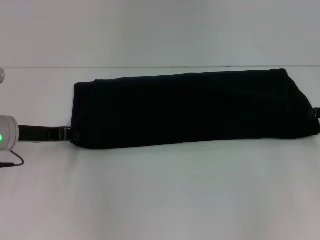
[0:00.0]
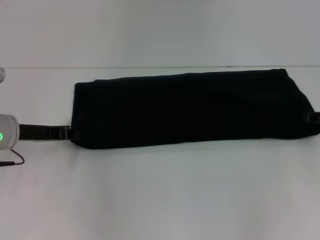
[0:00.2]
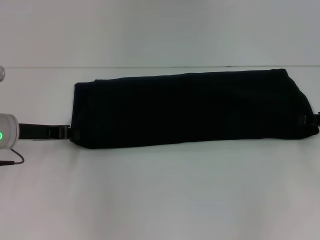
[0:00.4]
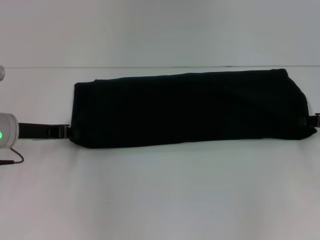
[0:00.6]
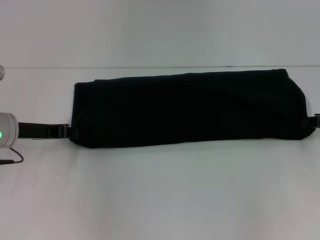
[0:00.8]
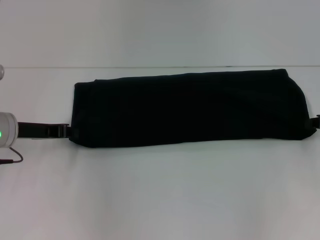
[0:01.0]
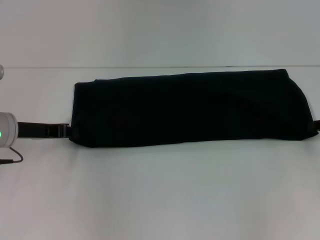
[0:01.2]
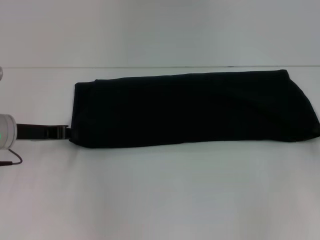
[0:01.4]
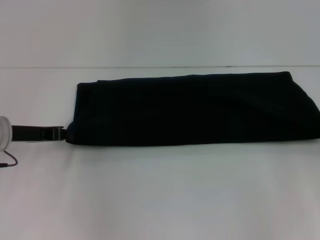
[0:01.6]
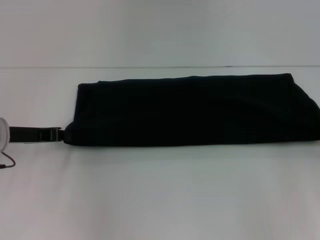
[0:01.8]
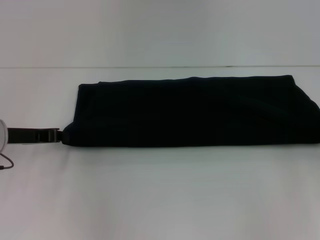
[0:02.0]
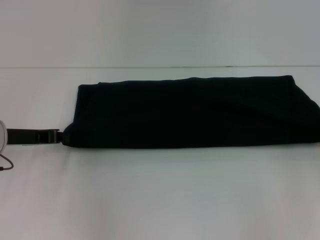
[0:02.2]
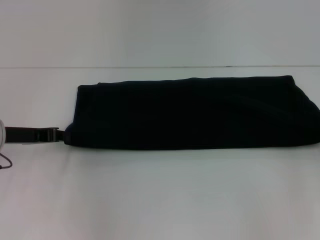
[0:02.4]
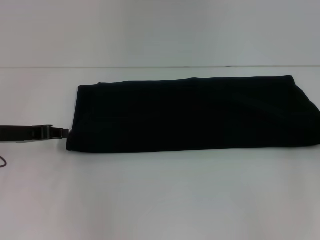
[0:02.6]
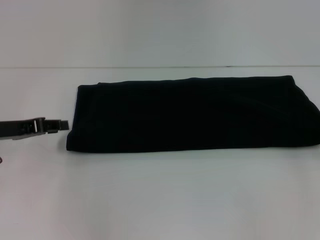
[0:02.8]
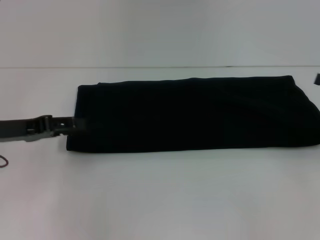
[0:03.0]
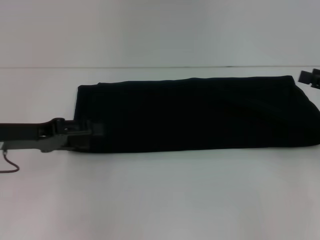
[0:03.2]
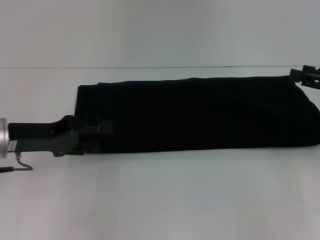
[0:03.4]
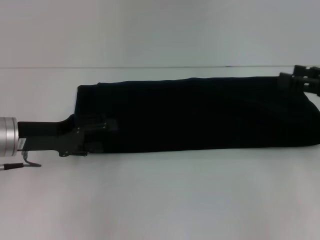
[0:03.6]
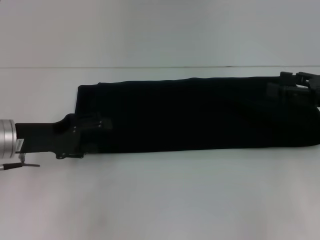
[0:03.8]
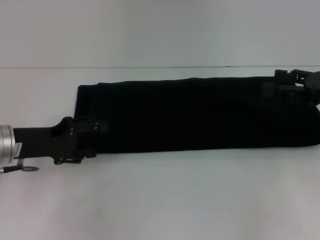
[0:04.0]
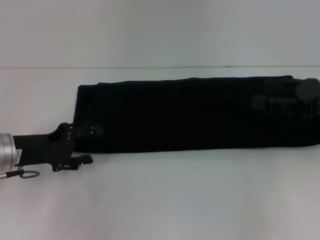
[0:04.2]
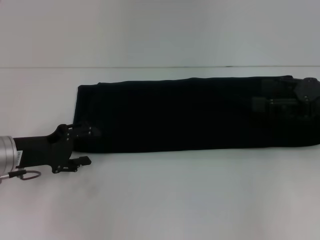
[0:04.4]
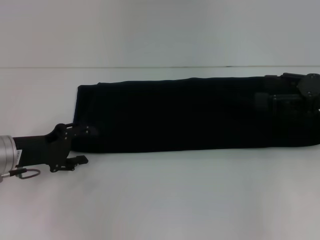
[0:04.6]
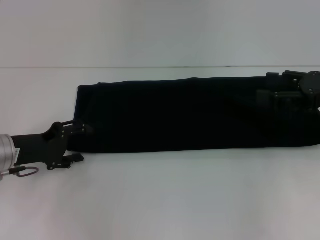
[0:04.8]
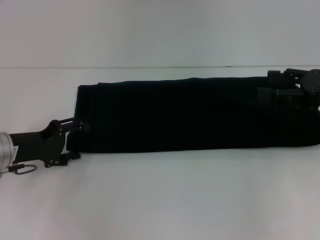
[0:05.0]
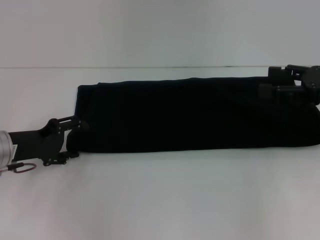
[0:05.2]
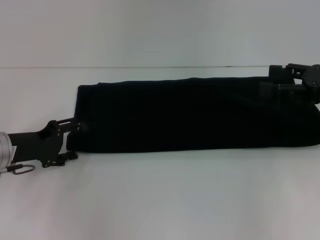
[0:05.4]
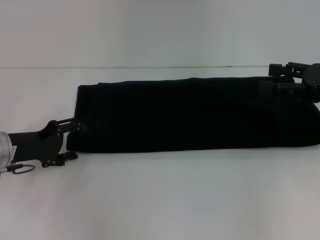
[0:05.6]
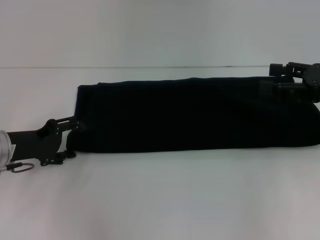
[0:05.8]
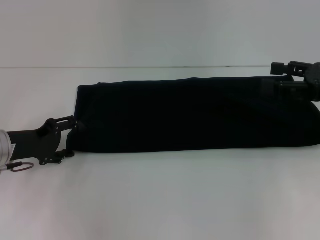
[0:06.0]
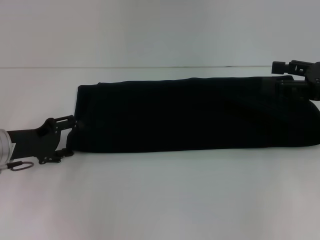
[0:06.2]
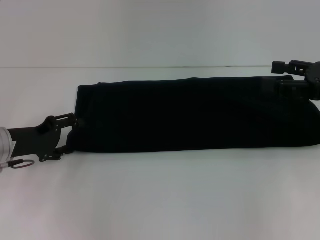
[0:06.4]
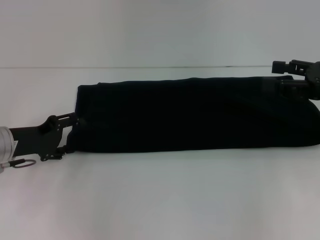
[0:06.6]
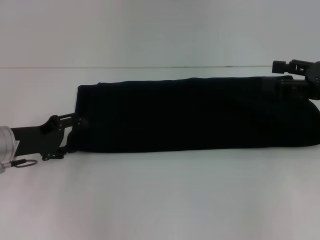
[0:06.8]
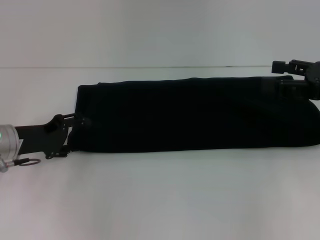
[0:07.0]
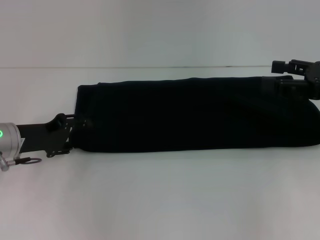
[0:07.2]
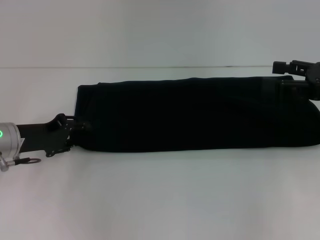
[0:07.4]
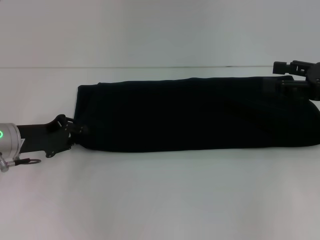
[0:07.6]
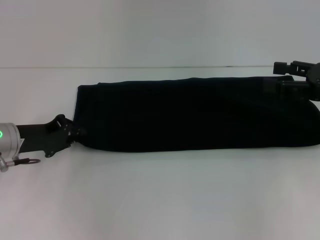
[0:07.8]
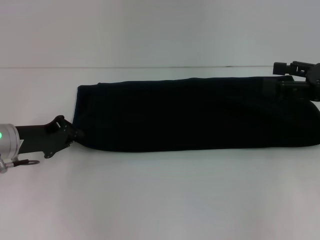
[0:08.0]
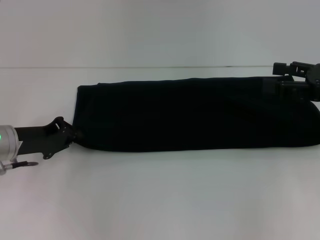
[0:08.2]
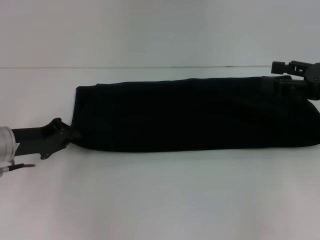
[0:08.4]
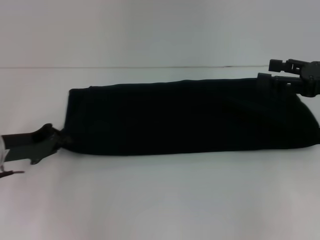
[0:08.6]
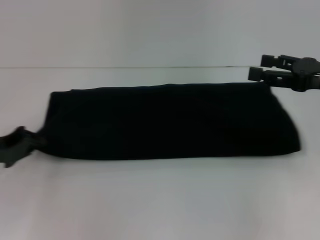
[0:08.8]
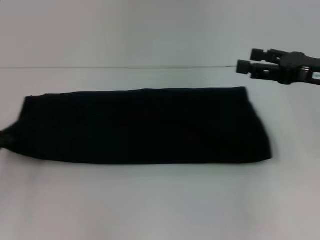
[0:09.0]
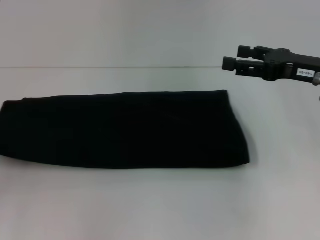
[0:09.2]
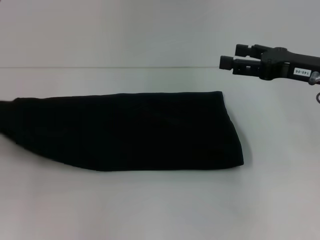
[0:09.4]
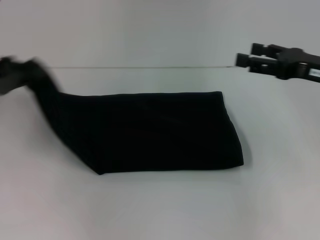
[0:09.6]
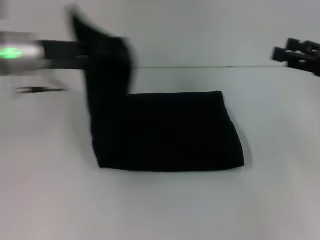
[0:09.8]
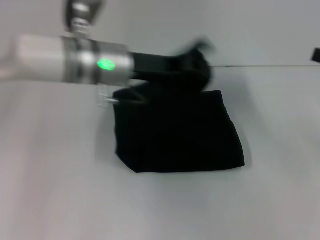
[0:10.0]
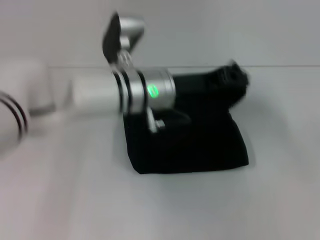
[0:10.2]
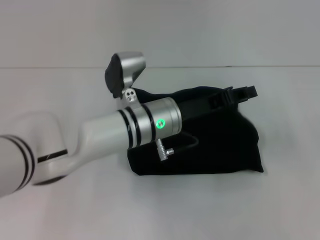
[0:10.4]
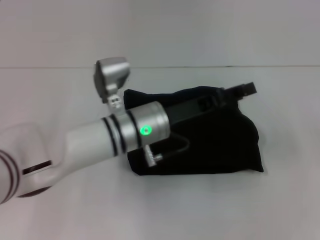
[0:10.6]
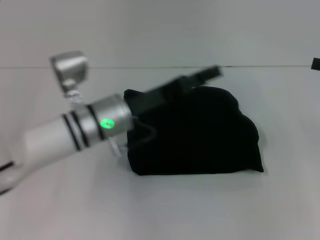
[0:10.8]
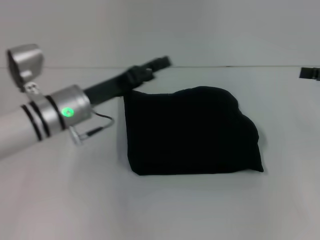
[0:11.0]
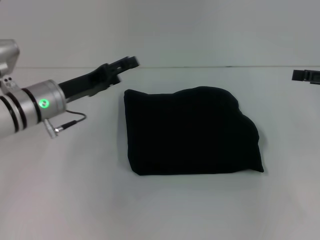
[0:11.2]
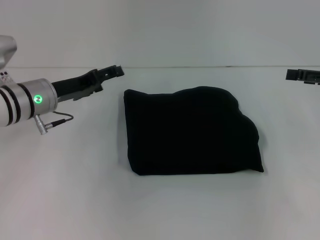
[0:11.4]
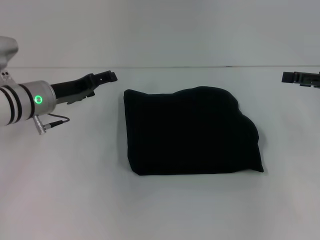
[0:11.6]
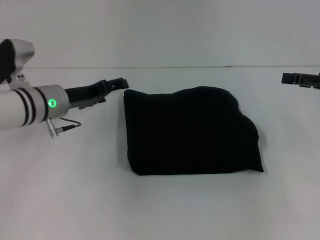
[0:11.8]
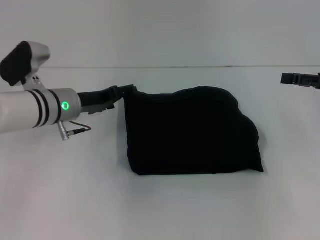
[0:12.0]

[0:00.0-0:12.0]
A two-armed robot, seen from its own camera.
Step, 0:00.0 to 0:10.6: Fold the clothes with your left hand.
0:00.0 to 0:01.6: The right gripper closes its fingers.
0:01.6 to 0:03.0: The right gripper is displaced upward by about 5 cm, and opens.
0:03.0 to 0:04.4: The left gripper goes some 5 cm downward, and opens. Meanwhile the right gripper is displaced to the left by some 5 cm, and opens up.
0:04.4 to 0:06.0: There are only small adjustments of the grippers.
0:06.0 to 0:07.6: The left gripper closes its fingers.
0:07.6 to 0:09.0: The left gripper travels to the left and backward by some 10 cm, and closes.
0:09.0 to 0:10.4: The left gripper travels to the right by roughly 35 cm; the right gripper moves to the right, approximately 10 cm.
0:10.4 to 0:12.0: The left gripper heads to the left, covering approximately 15 cm, and opens up; the right gripper moves to the left, roughly 5 cm.

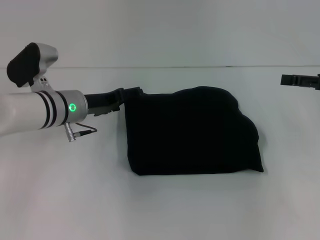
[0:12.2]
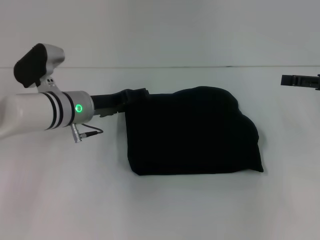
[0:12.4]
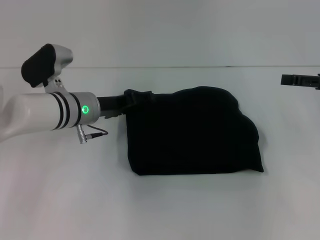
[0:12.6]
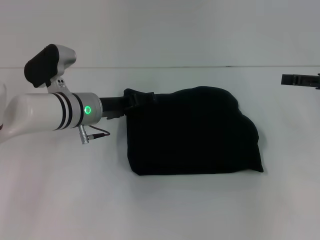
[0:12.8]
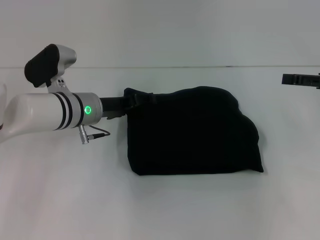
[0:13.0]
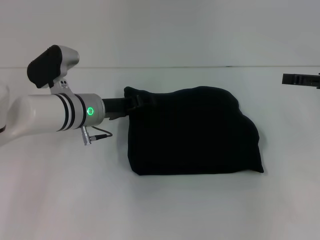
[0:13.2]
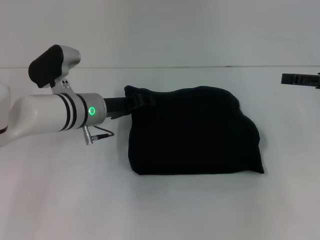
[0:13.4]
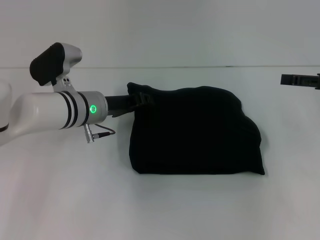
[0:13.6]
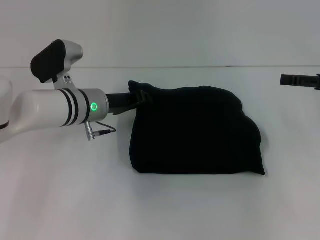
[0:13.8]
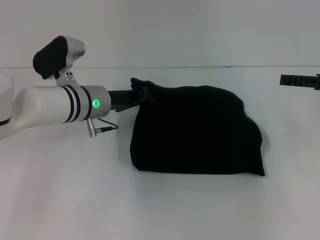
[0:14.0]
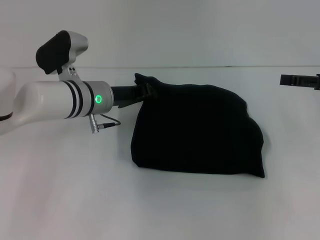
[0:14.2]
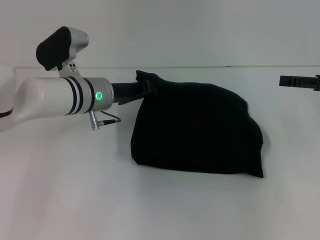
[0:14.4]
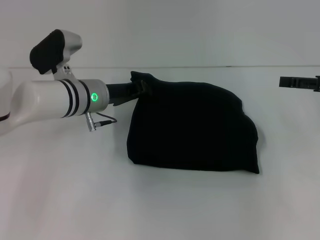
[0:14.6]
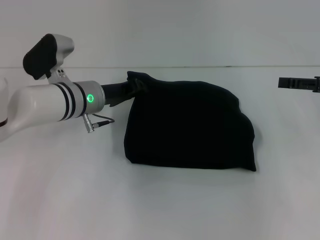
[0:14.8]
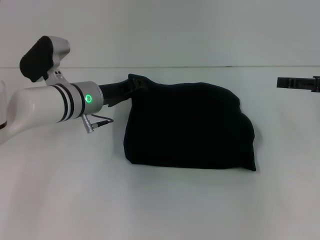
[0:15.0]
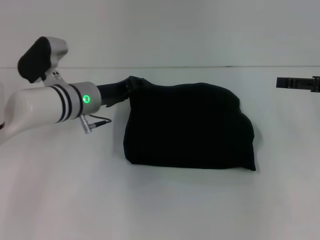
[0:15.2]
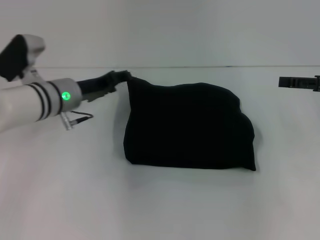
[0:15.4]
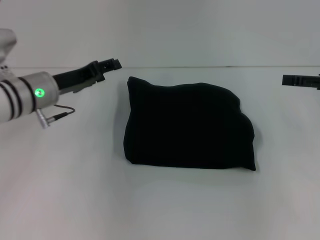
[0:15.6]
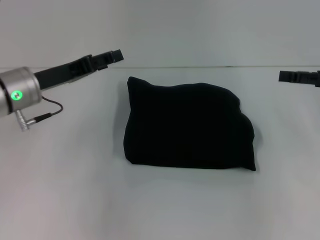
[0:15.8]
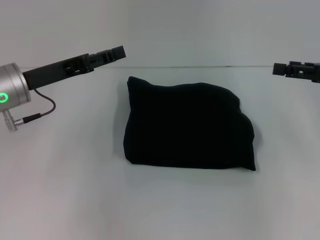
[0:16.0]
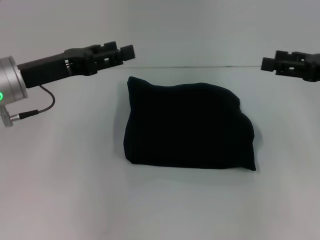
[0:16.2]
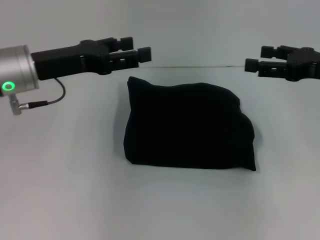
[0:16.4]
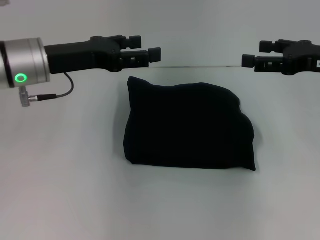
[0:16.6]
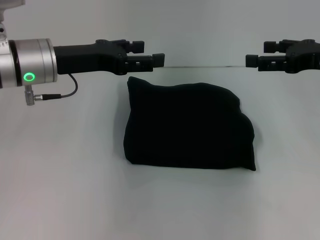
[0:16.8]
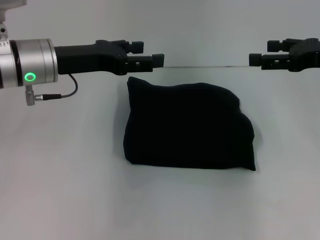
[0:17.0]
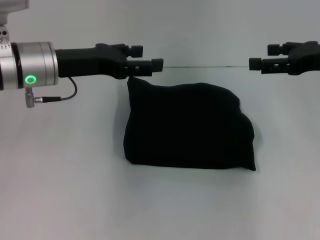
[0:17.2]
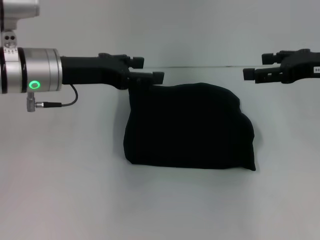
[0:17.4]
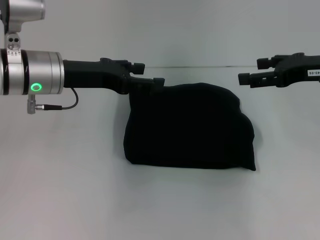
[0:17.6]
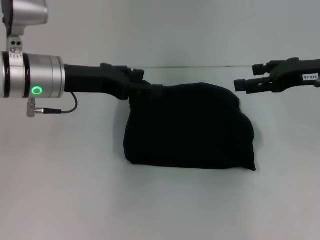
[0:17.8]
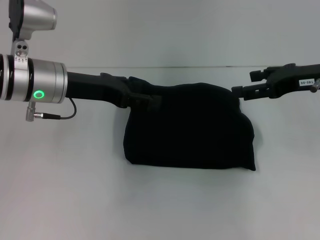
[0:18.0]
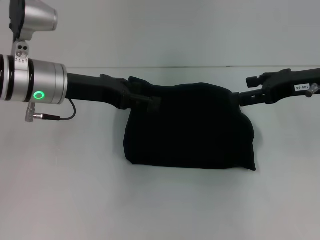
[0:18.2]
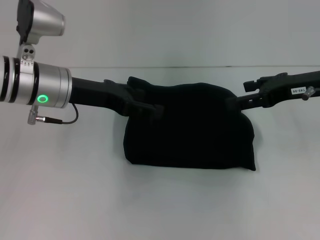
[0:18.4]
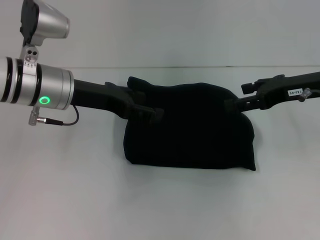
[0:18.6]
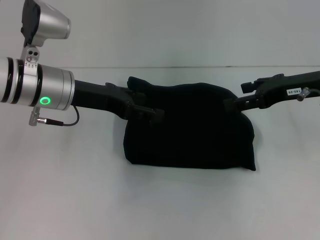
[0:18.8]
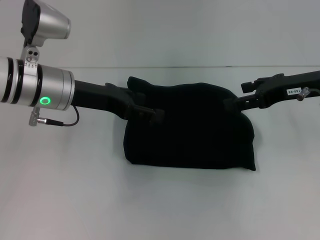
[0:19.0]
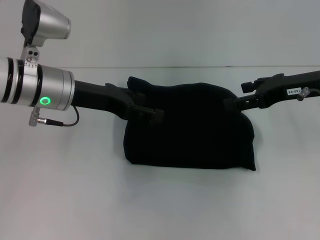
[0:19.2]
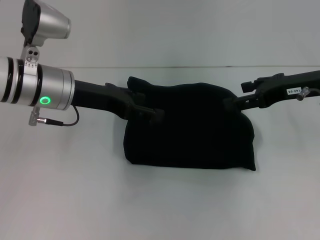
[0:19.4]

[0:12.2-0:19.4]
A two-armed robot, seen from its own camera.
0:12.2 to 0:13.6: The left gripper closes its fingers.
0:13.6 to 0:15.0: The left gripper closes up.
0:15.0 to 0:16.6: The left gripper heads upward and to the left, covering roughly 10 cm, and opens up; the right gripper is displaced to the left by approximately 5 cm.
0:16.6 to 0:18.0: The grippers move only a little.
0:18.0 to 0:19.4: The grippers move only a little.
